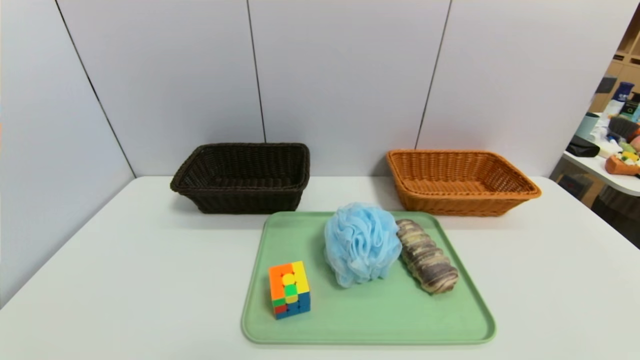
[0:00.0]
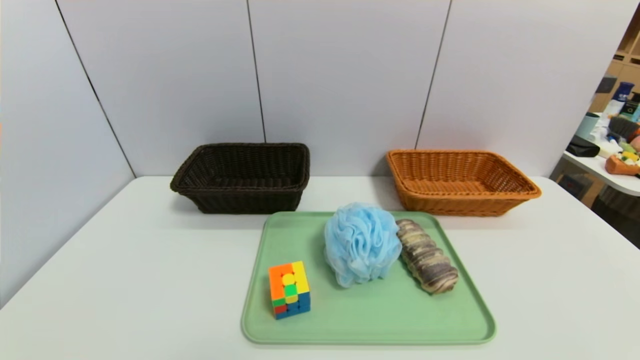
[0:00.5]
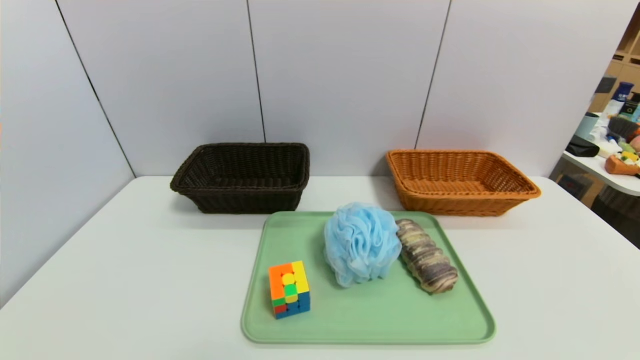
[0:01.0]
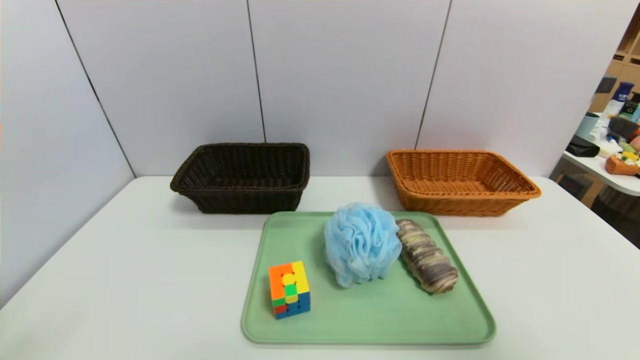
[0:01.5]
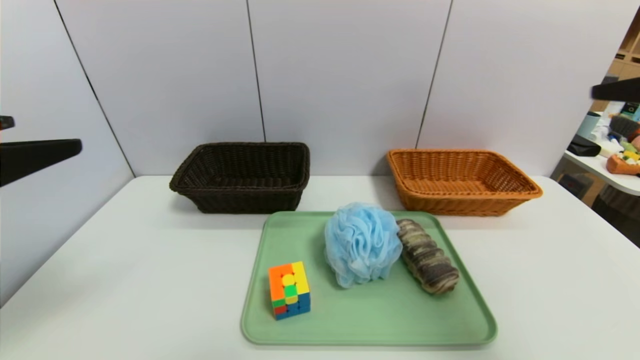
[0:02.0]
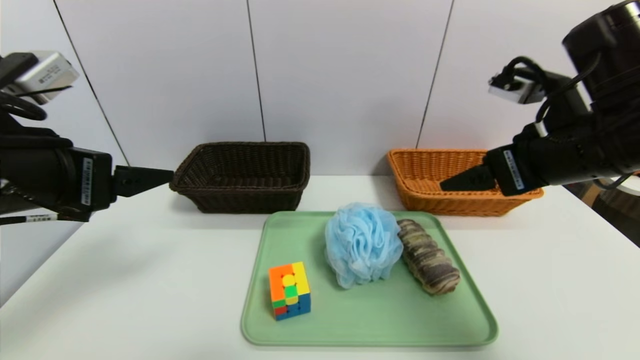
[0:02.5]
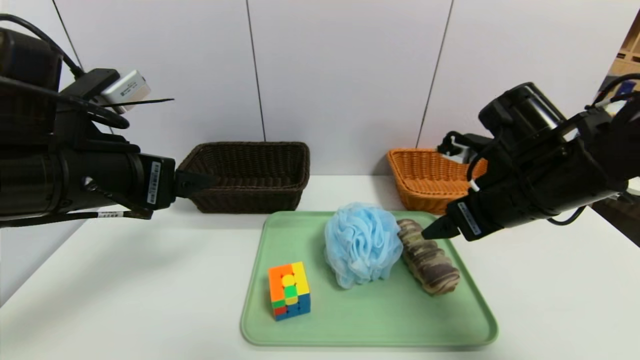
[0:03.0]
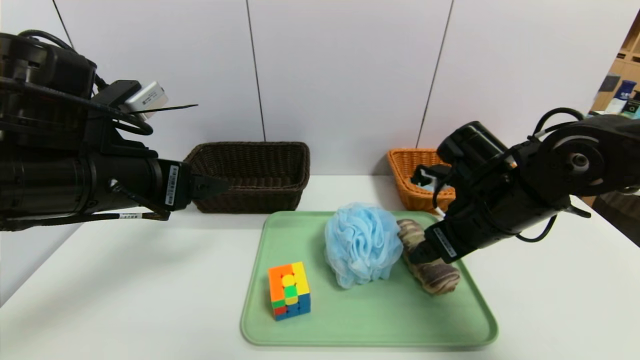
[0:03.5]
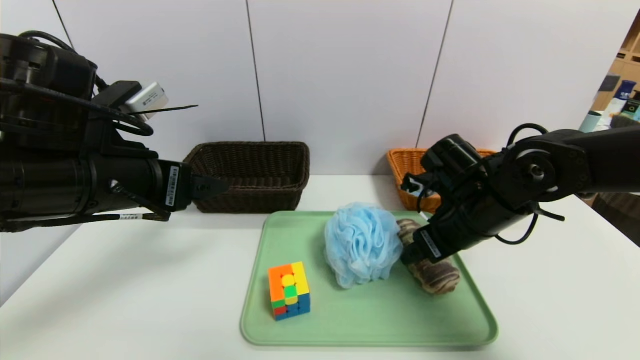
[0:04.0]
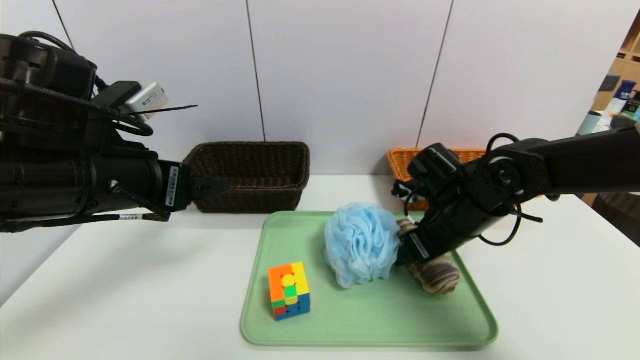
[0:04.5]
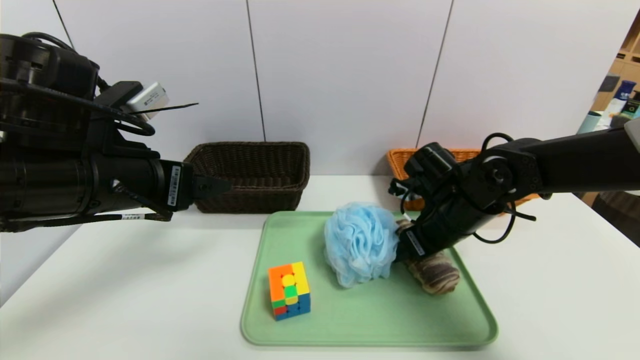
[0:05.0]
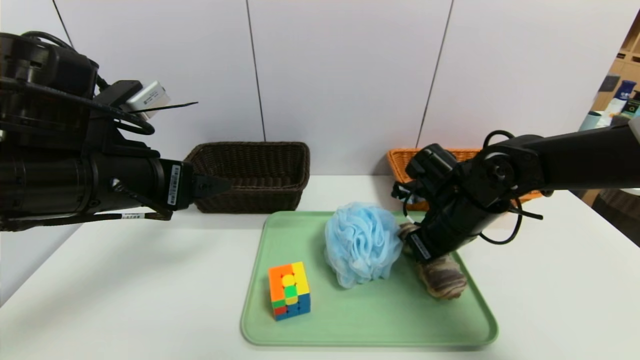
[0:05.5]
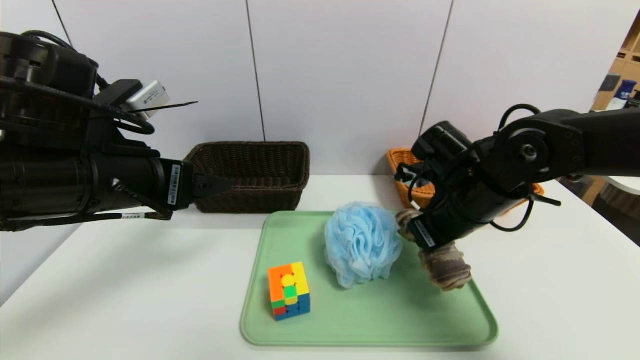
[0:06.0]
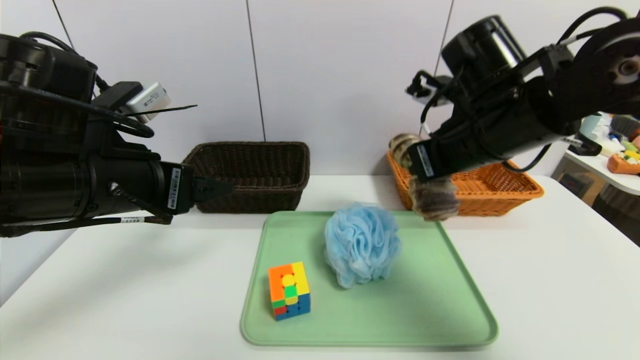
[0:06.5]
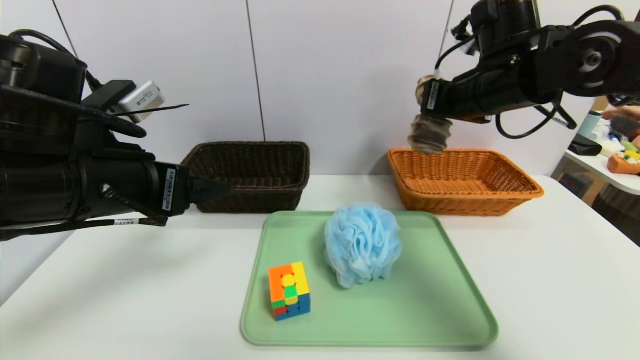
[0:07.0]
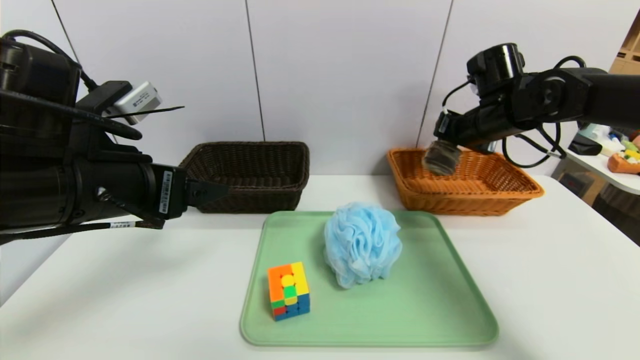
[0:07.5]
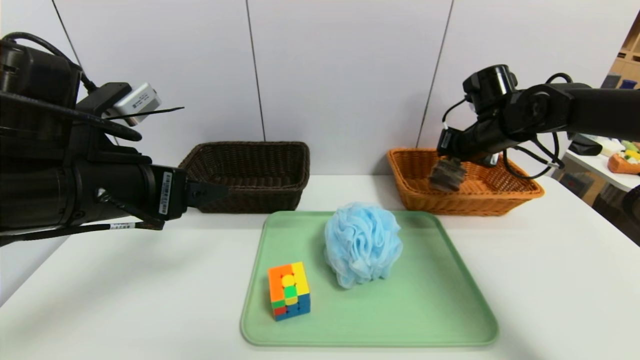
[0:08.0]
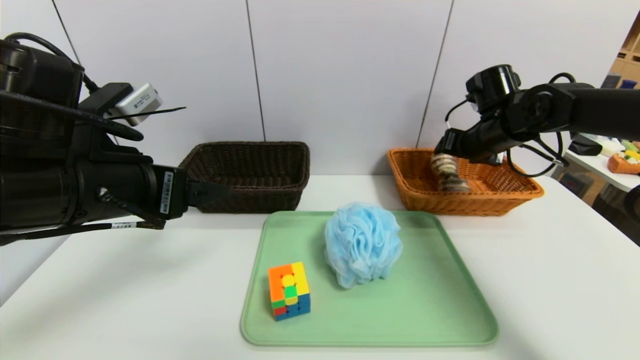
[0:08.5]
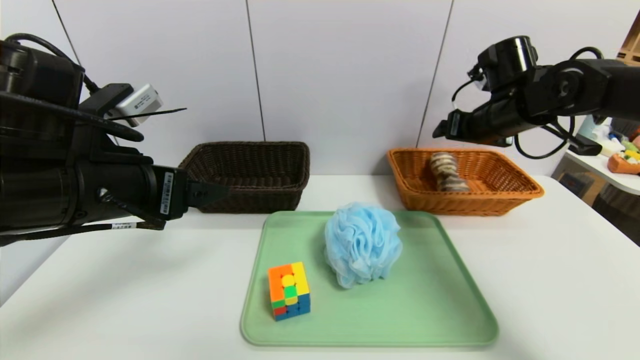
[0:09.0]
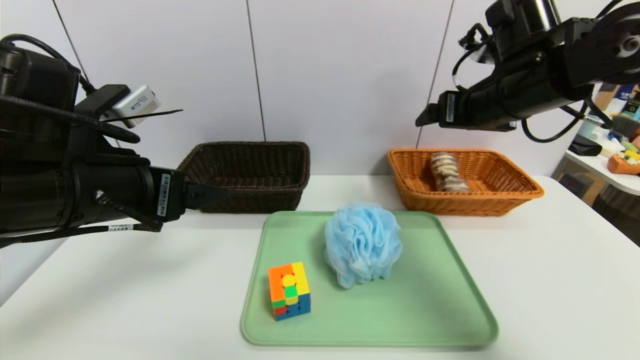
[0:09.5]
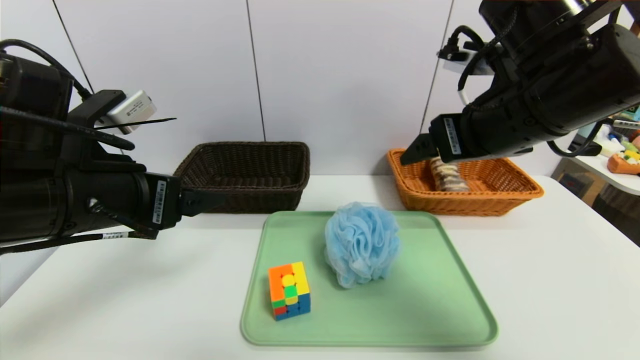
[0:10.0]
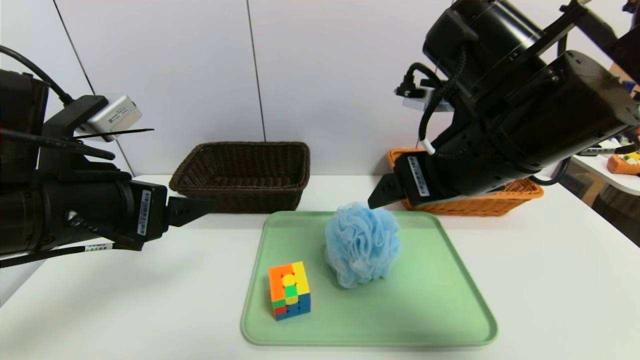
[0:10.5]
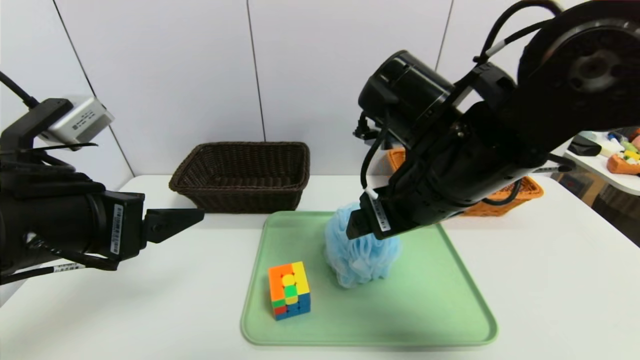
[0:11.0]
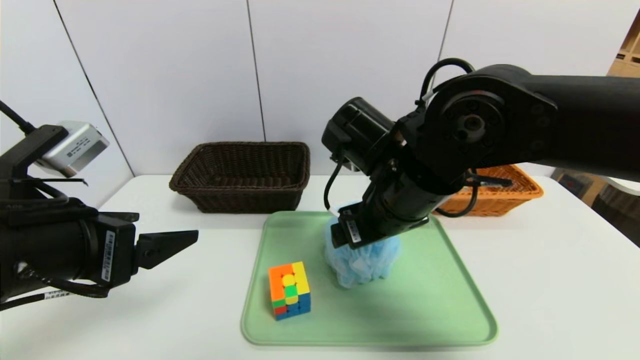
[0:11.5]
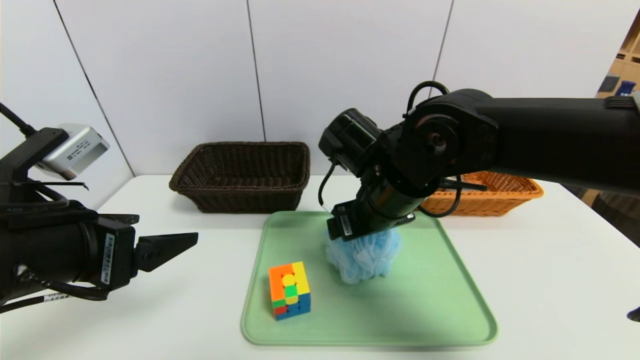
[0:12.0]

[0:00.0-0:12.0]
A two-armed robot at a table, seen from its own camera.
Task of the whole recording: place the food in the right basket with the right gripper, and place the non food items in the left basket with the left gripper.
Step, 0:00.0 to 0:08.5: Grasp the long bread and put it in the right basket.
0:00.0 to 0:02.0: Both grippers move upward and forward, about 30 cm.
0:02.0 to 0:04.0: The right gripper shifts roughly 30 cm downward, forward and to the left, while the left gripper goes about 15 cm forward, to the right and downward.
0:04.0 to 0:06.0: The right gripper closes.
0:06.0 to 0:08.0: The right gripper shifts about 15 cm forward and to the right.
0:08.0 to 0:10.0: The right gripper moves backward, upward and to the left, approximately 20 cm, and opens up.
0:10.0 to 0:12.0: The right gripper shifts roughly 15 cm downward and to the left. Meanwhile the left gripper ends up some 5 cm from where it was.

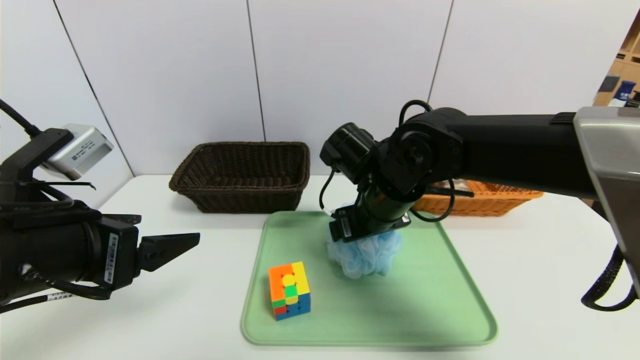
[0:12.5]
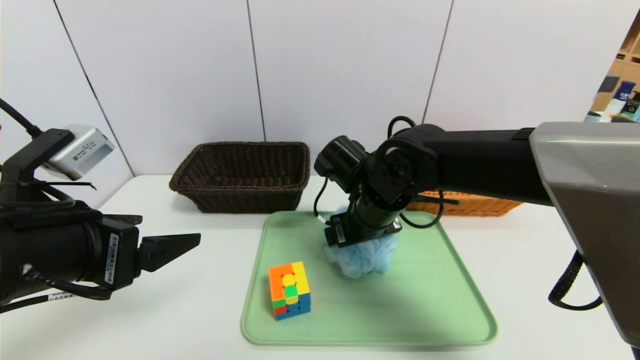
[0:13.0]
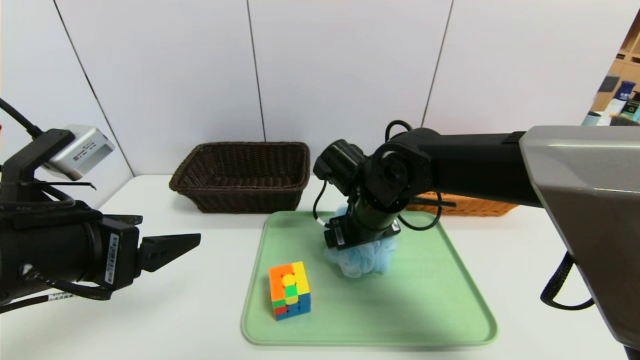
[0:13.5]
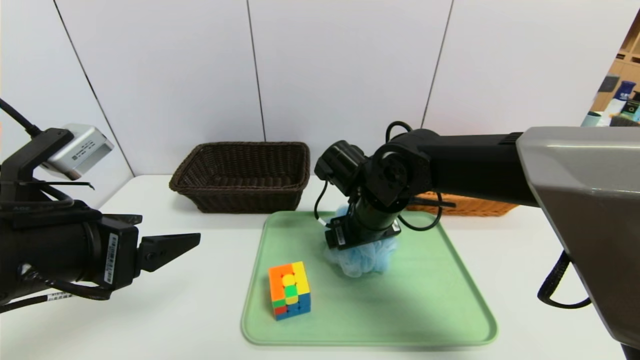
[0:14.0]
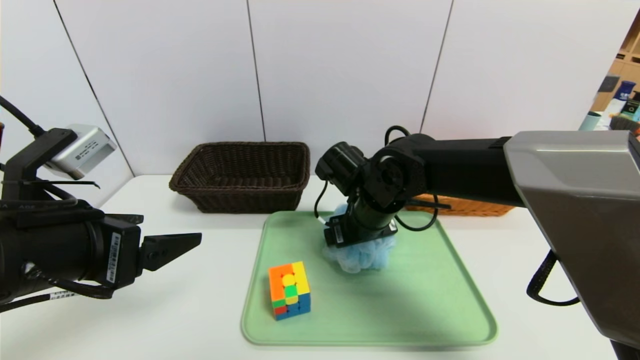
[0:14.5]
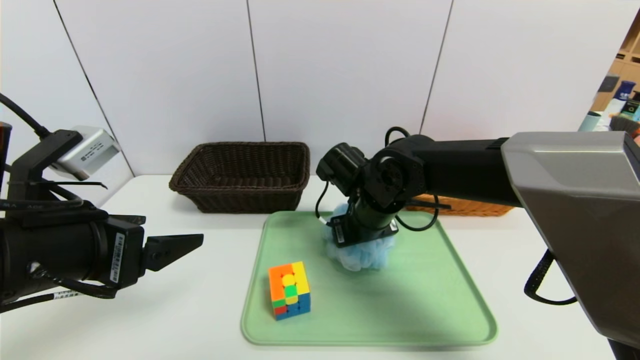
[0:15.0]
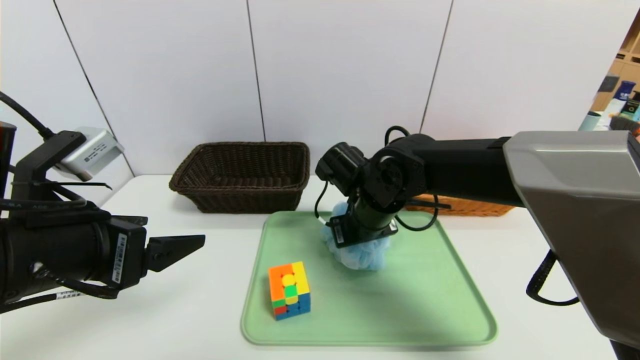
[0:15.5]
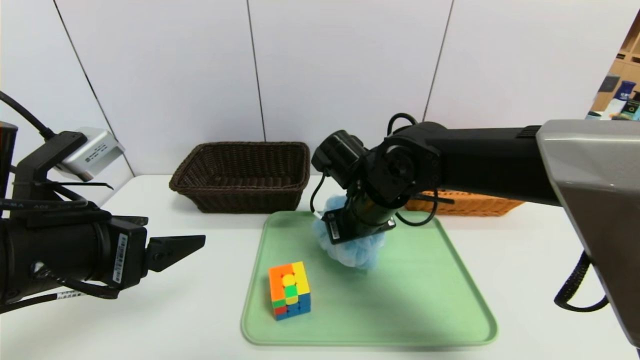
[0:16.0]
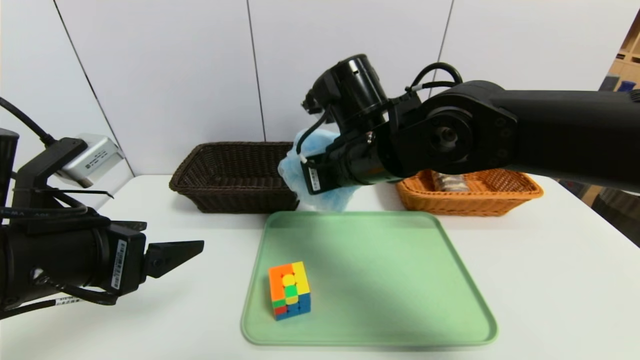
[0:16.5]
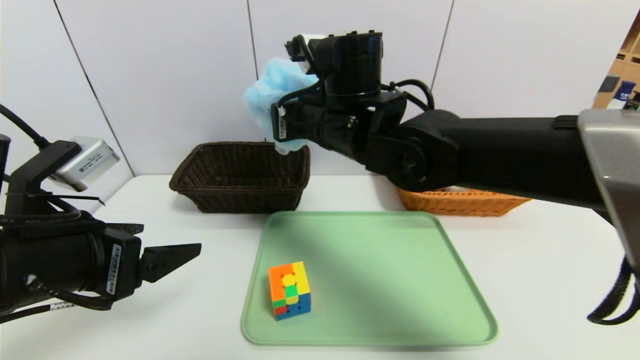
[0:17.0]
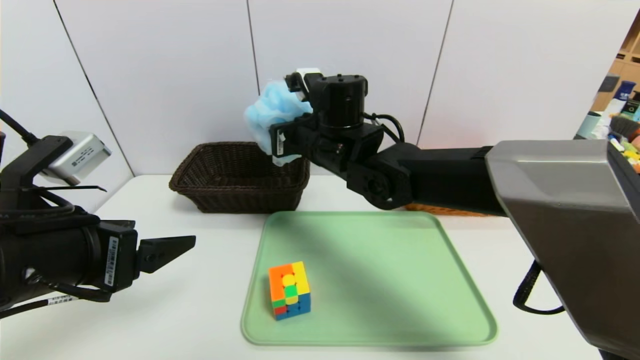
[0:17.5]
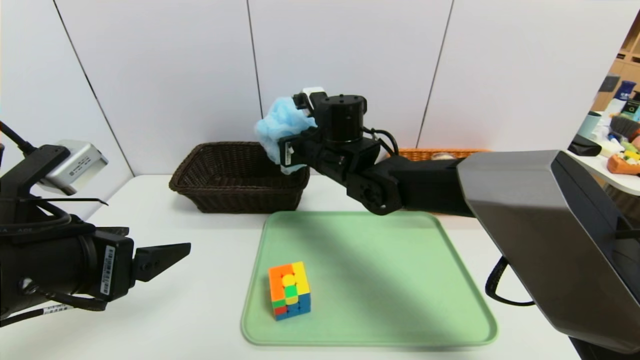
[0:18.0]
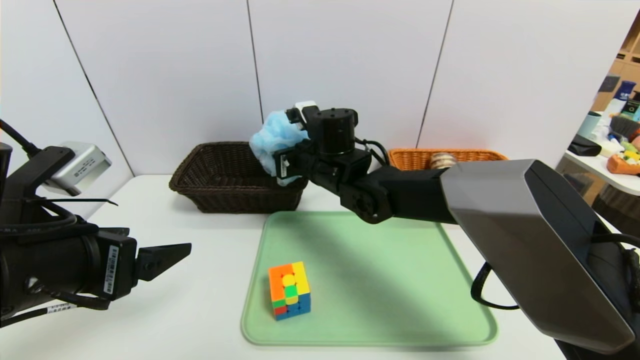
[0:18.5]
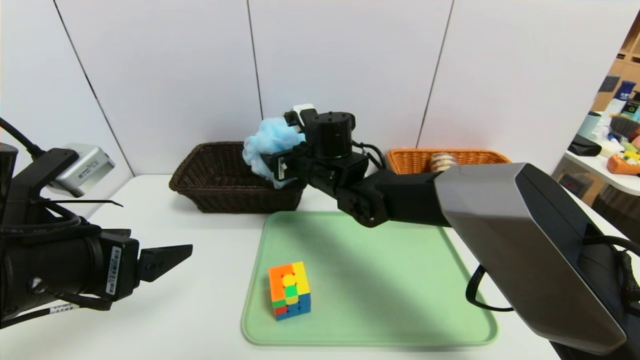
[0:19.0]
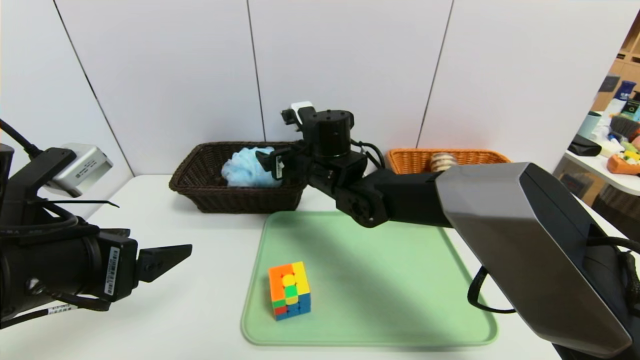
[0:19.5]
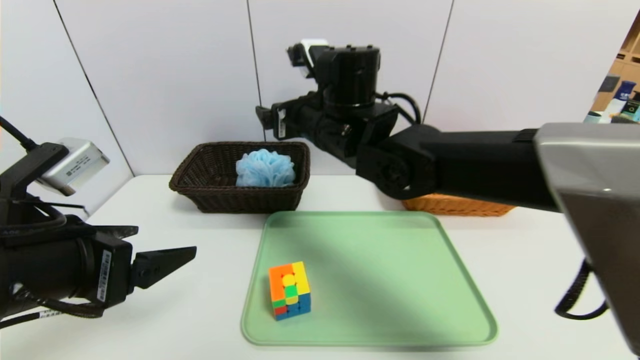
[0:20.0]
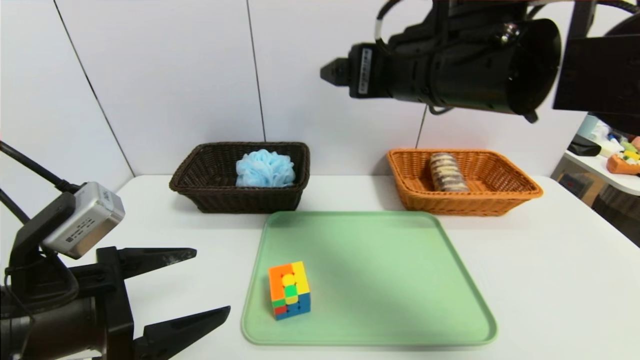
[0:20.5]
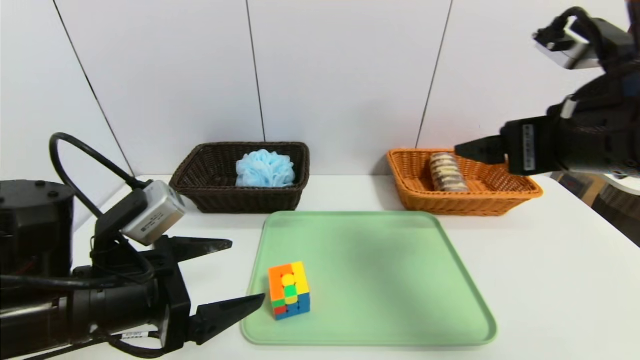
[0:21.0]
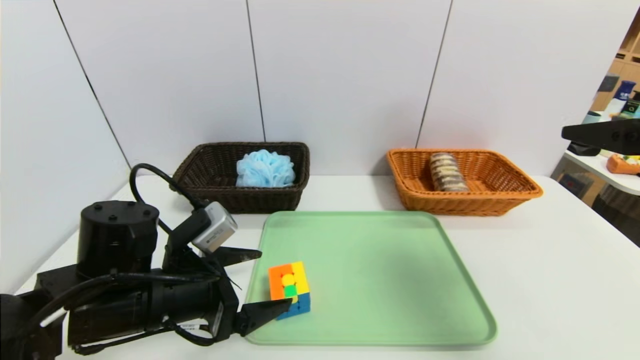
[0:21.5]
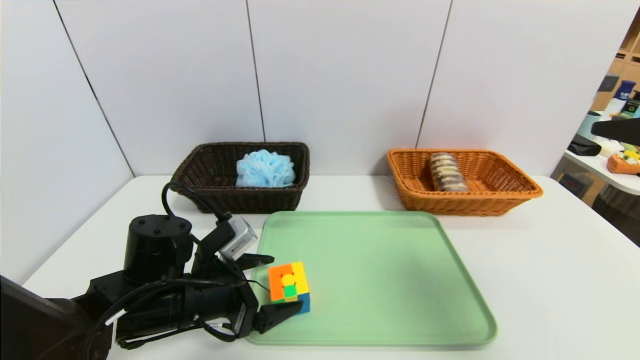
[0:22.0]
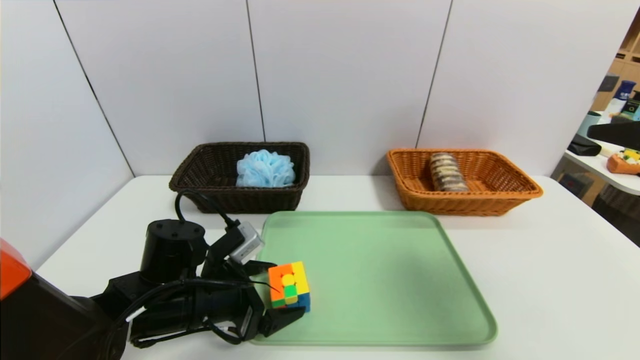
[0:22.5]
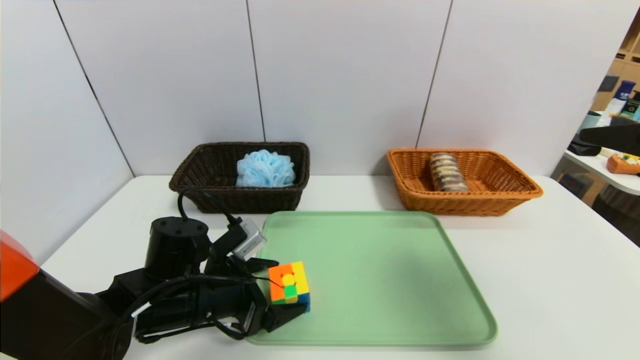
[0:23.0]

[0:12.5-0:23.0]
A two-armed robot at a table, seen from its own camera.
Task of the whole recording: place the food in the right basket with the right gripper, and place the non food items in the left basket with the left gripper.
0:12.5 to 0:14.5: There are only small adjustments of the grippers.
0:14.5 to 0:16.5: The right gripper is displaced upward by approximately 10 cm, and closes its fingers.
0:16.5 to 0:19.0: The right gripper is displaced forward and downward by approximately 10 cm, and opens its fingers.
0:19.0 to 0:21.0: The left gripper shifts by some 5 cm, while the right gripper heads to the right, backward and upward, covering roughly 35 cm.
0:21.0 to 0:23.0: The left gripper moves downward and forward, approximately 10 cm; the right gripper moves to the right and backward, approximately 10 cm.
